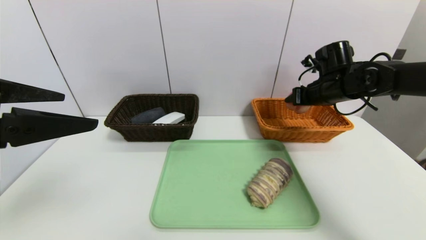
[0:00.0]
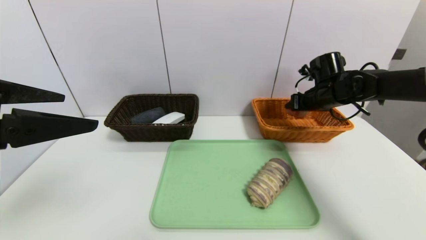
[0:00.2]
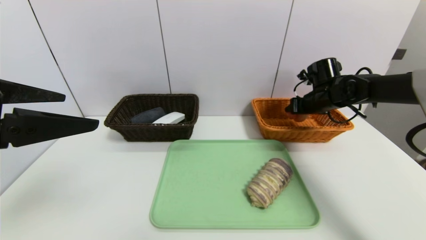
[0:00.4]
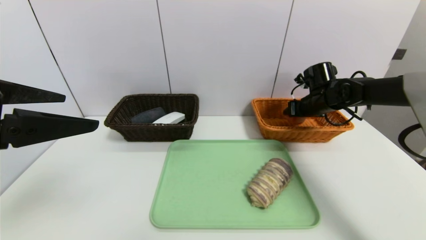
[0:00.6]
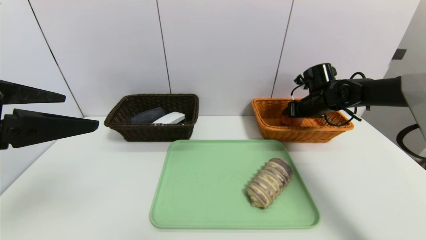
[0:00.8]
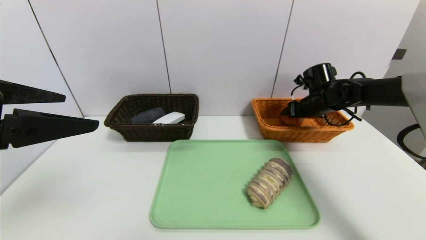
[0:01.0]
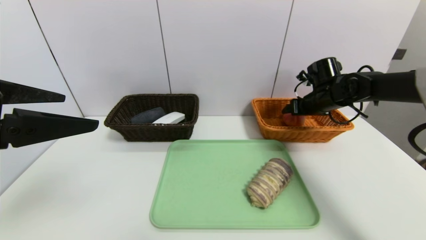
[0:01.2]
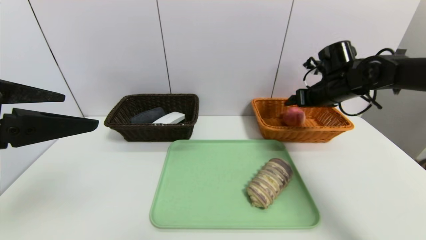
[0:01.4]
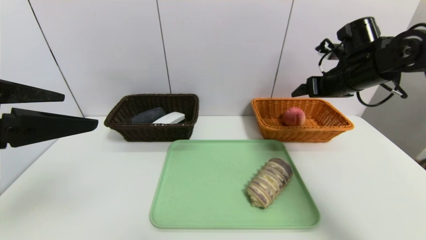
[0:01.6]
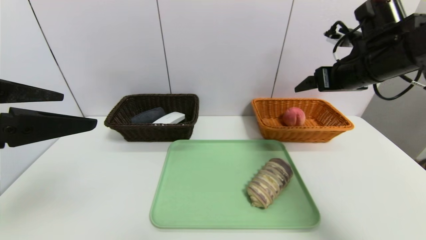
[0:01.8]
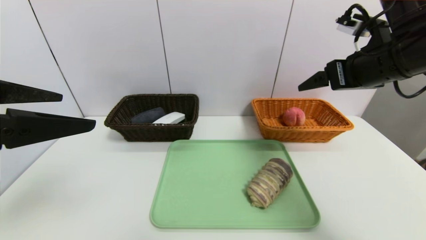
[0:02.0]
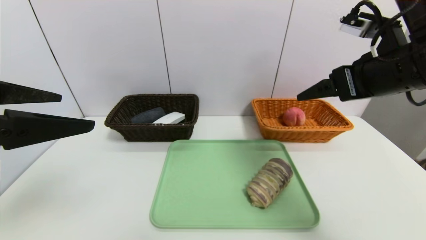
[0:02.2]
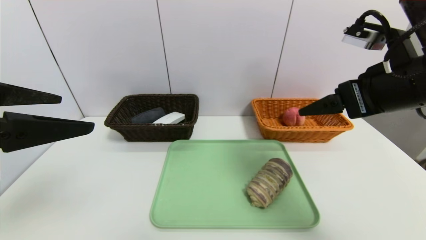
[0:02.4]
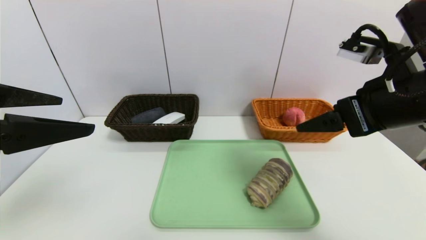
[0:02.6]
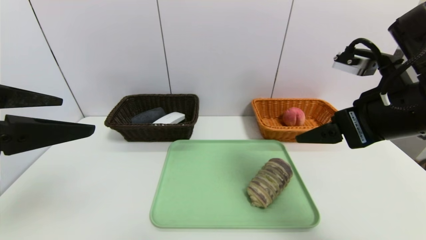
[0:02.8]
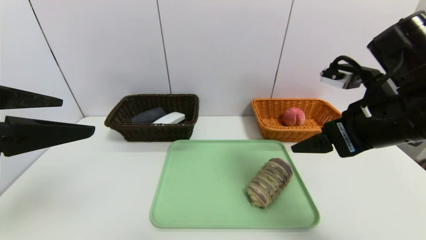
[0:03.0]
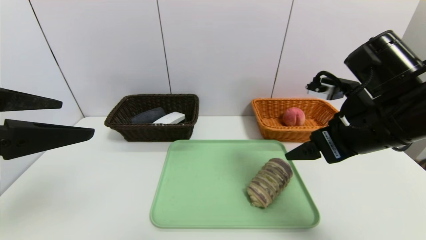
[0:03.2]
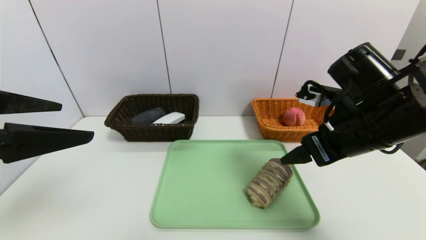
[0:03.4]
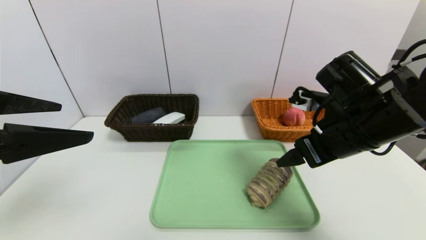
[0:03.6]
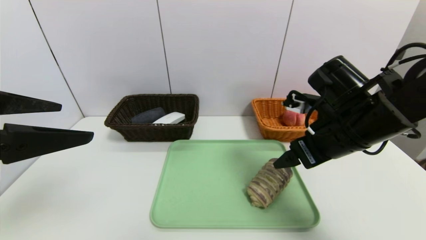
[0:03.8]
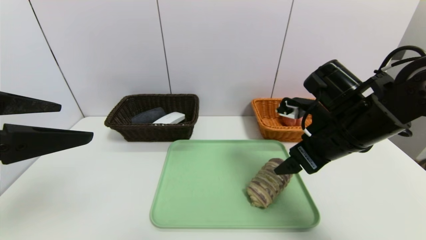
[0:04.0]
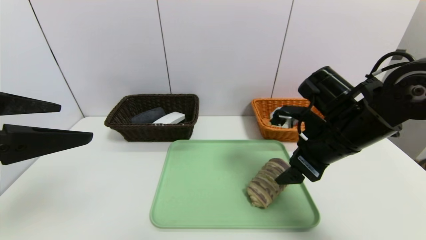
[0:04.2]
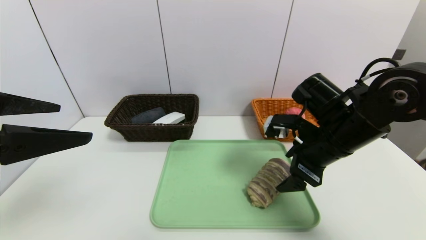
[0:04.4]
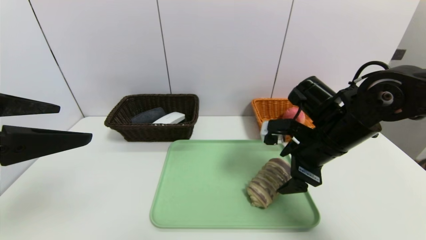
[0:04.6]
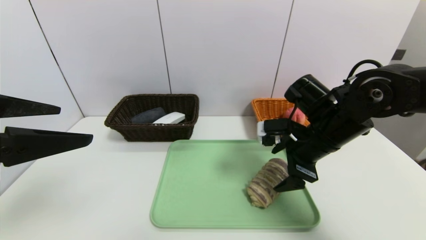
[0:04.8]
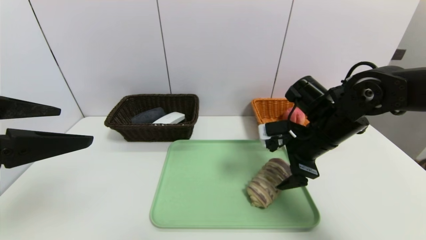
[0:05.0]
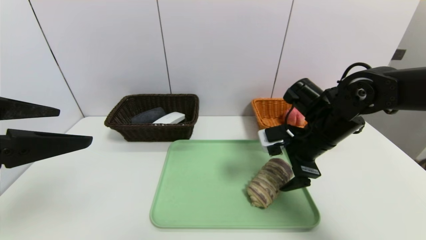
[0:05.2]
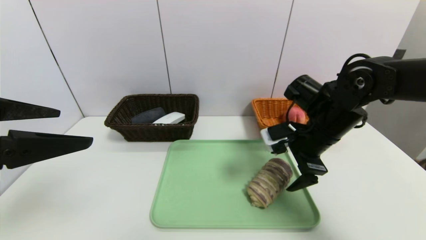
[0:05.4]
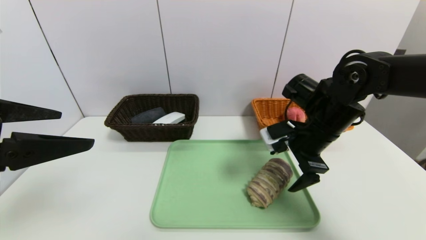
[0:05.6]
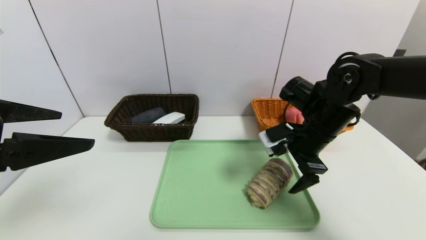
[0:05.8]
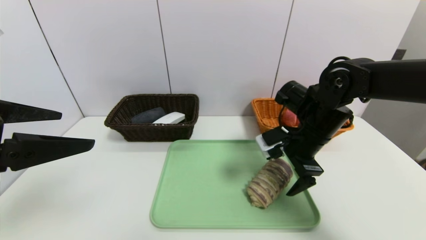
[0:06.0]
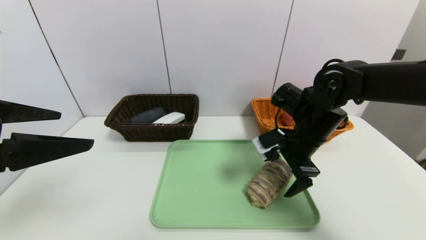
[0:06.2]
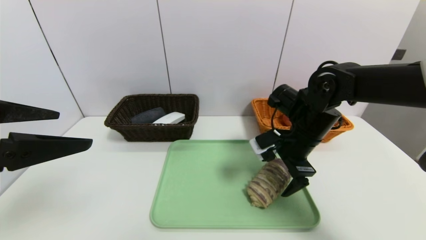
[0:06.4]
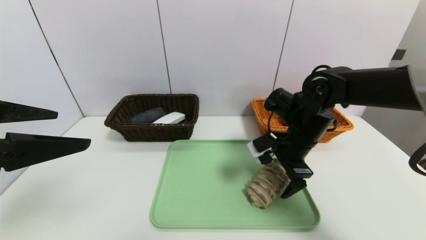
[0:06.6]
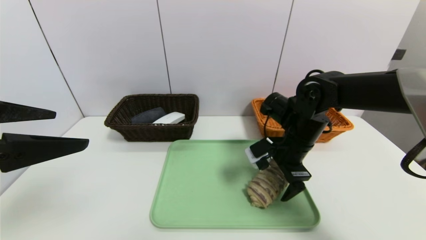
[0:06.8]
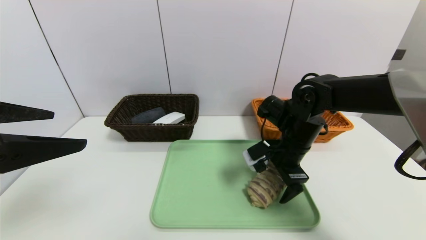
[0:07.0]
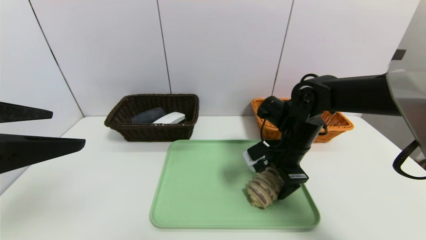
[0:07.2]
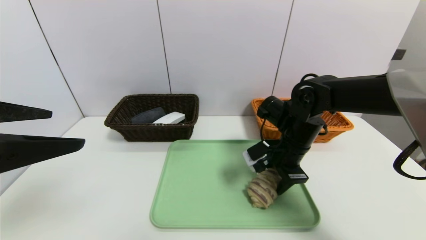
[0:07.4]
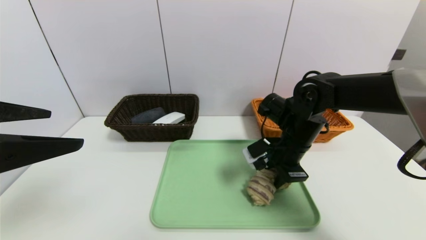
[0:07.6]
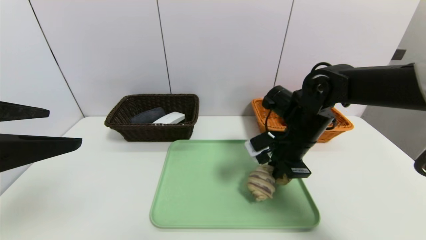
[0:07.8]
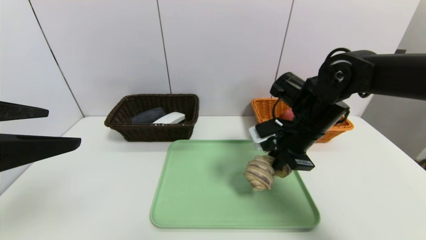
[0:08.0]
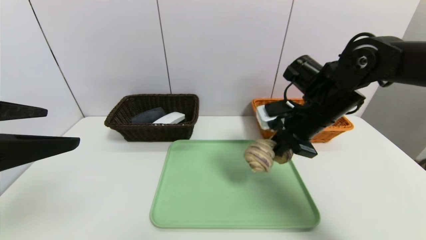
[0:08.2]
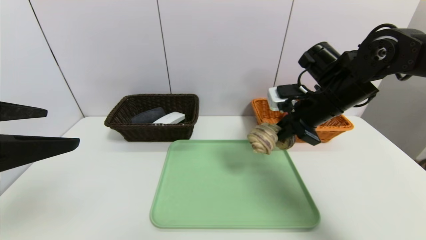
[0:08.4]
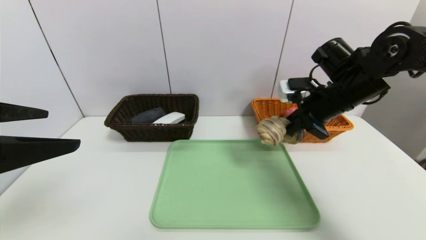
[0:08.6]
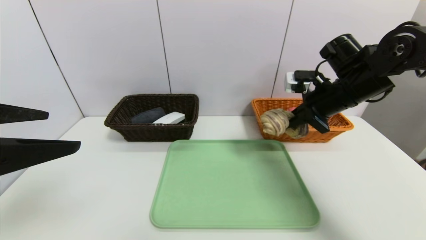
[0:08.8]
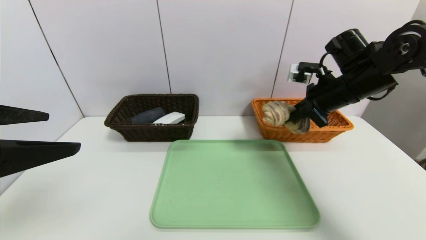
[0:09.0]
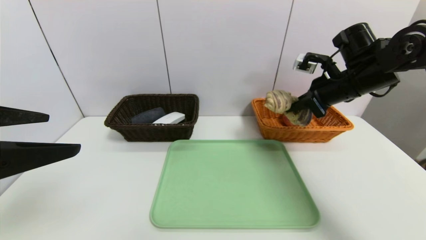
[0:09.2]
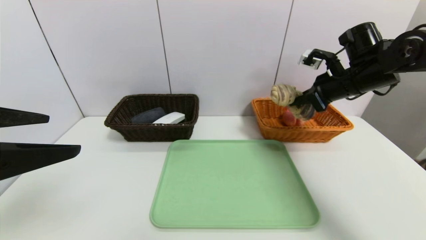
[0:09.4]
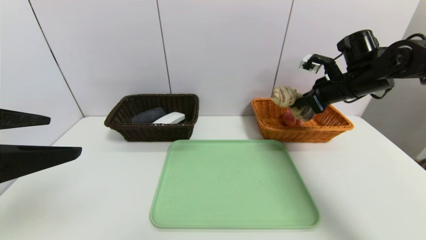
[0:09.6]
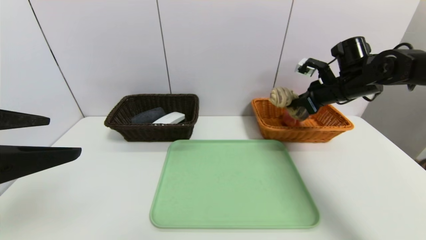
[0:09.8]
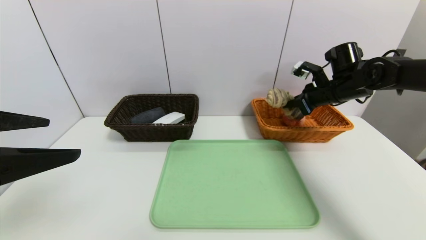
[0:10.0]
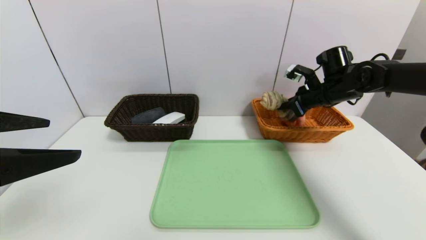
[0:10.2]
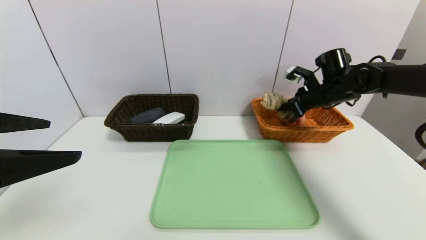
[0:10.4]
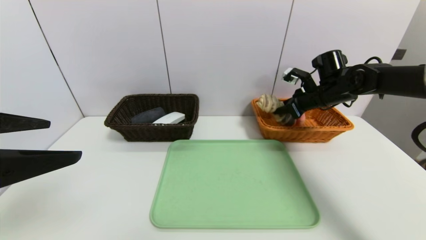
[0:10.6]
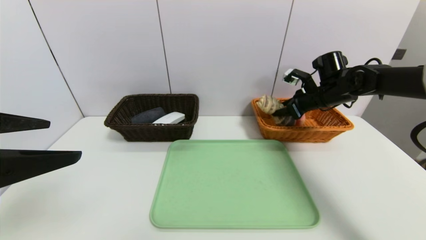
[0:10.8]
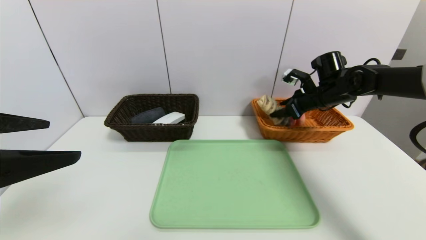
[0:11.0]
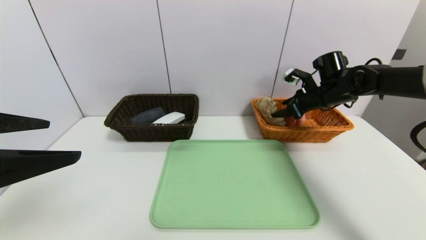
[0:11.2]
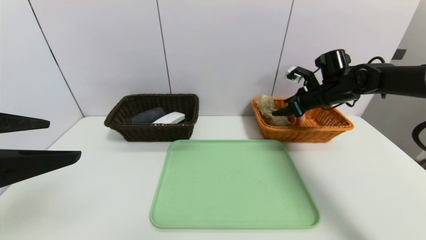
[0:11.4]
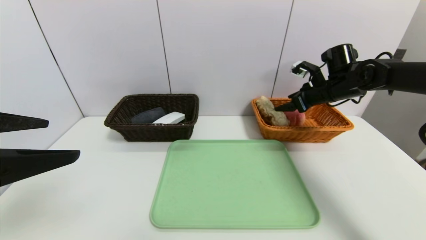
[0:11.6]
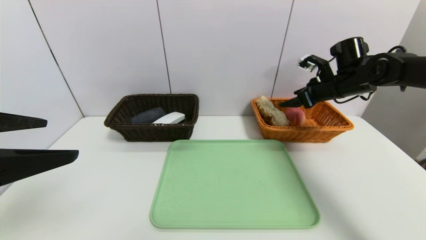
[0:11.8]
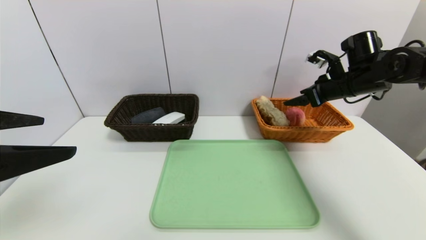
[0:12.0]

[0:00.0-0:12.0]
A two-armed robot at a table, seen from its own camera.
Task of the whole recording: place the food in the right basket with the right gripper, and place the non food items in the left basket with the left gripper.
0:00.0 to 0:01.6: The right gripper travels upward and backward by roughly 10 cm, and opens its fingers.
0:01.6 to 0:03.0: The right gripper is displaced backward by roughly 15 cm.
0:03.0 to 0:04.4: The right gripper heads downward and forward, covering approximately 10 cm.
0:04.4 to 0:06.0: The right gripper shifts by approximately 5 cm.
0:06.0 to 0:07.6: The right gripper closes up.
0:07.6 to 0:09.0: The right gripper shifts approximately 15 cm upward and to the right.
0:09.0 to 0:10.4: The right gripper goes roughly 10 cm forward and downward.
0:10.4 to 0:12.0: The right gripper moves approximately 5 cm, and opens.

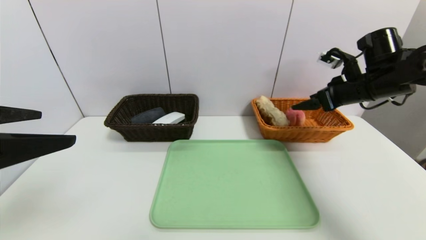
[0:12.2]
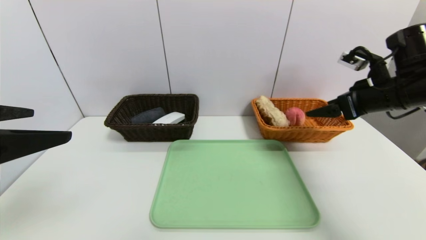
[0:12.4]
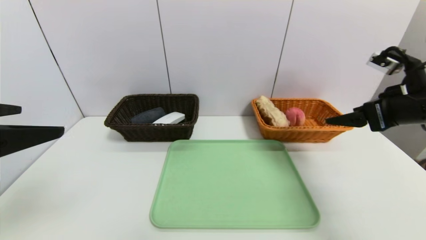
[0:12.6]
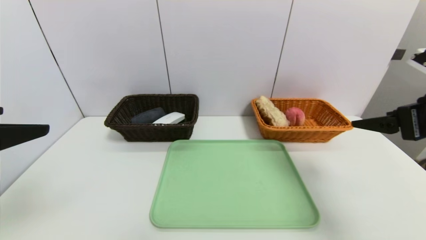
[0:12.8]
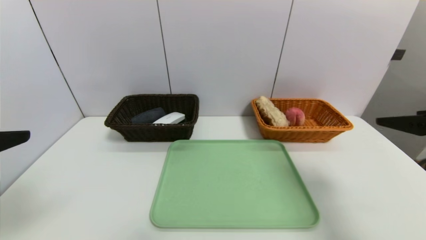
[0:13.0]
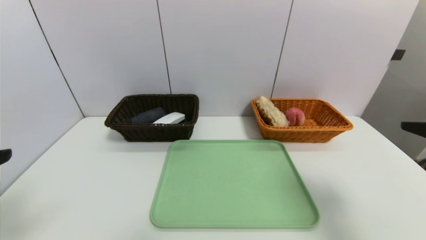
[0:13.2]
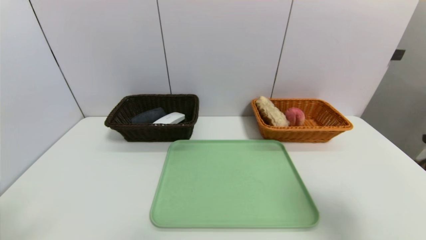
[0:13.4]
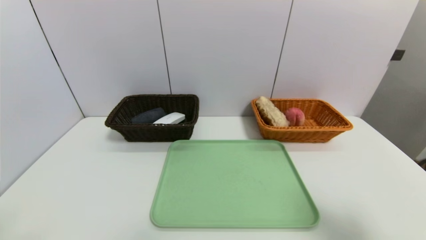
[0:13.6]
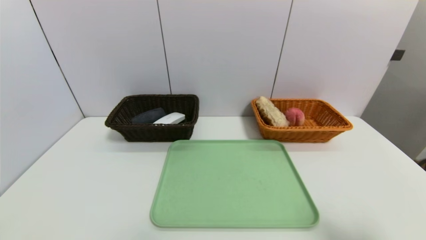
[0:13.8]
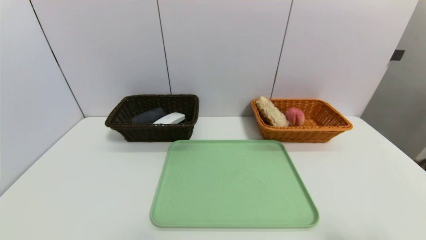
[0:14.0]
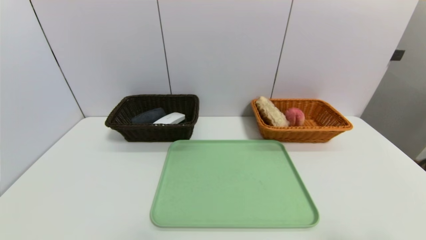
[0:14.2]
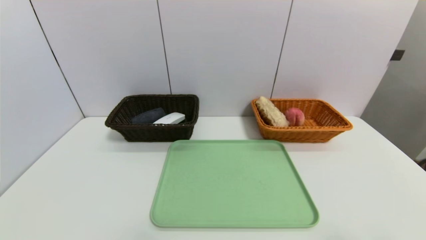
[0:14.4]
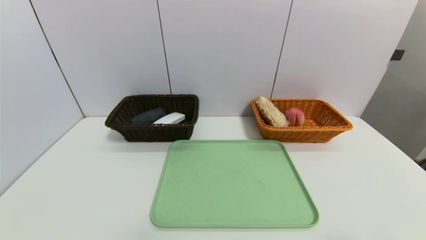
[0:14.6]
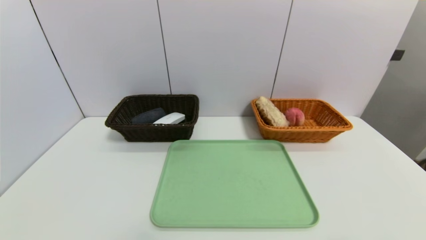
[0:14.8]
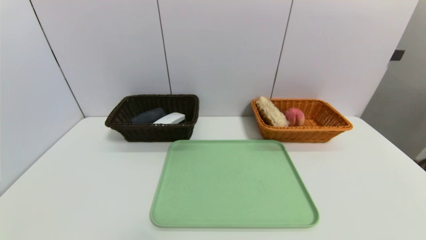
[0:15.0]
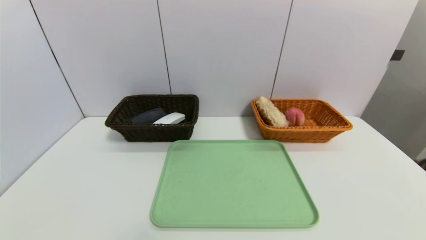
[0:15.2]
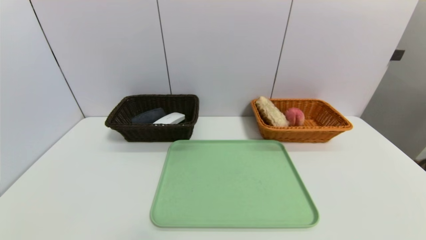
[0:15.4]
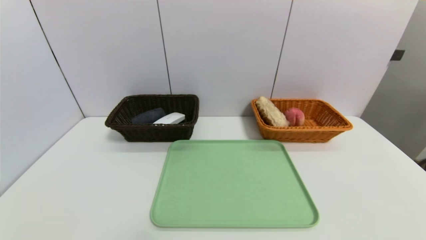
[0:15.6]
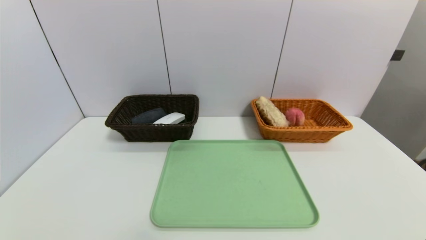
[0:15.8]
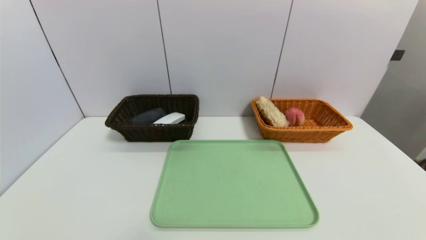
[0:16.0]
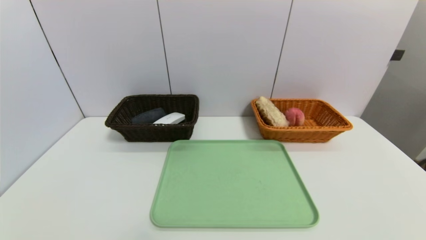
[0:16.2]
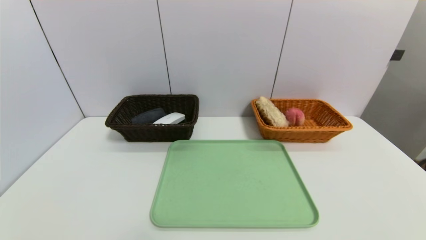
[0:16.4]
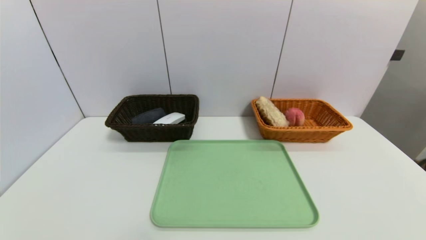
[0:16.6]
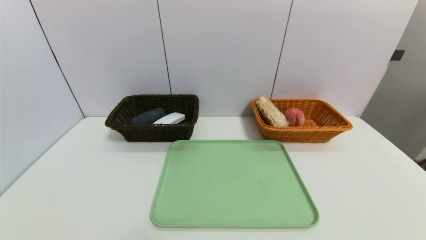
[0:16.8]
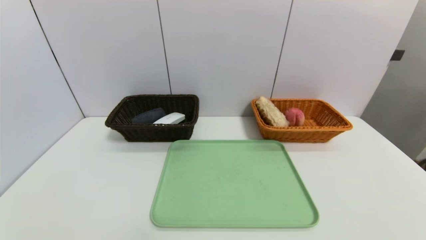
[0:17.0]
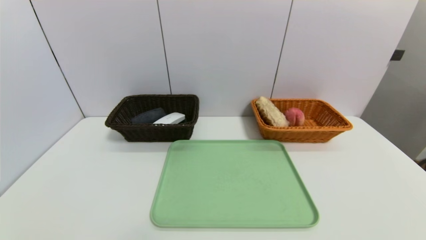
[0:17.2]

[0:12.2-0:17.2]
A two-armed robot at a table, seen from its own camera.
Task of the whole recording: place the food in the right basket with the right gripper, and place the non food items in the left basket with the left gripper.
0:12.2 to 0:13.8: The left gripper moves backward and downward, approximately 15 cm. The right gripper moves backward, some 30 cm.
0:13.8 to 0:15.6: The right gripper shifts roughly 15 cm downward.
